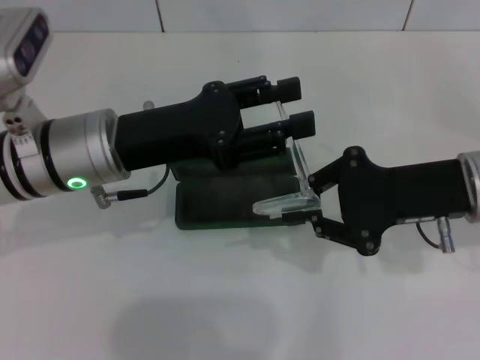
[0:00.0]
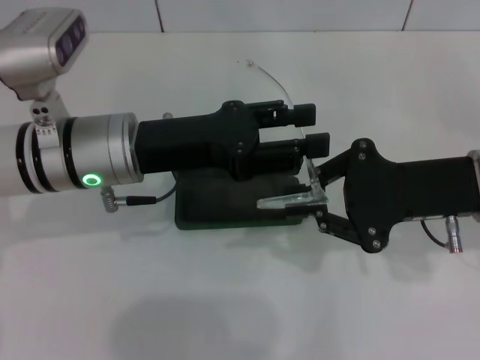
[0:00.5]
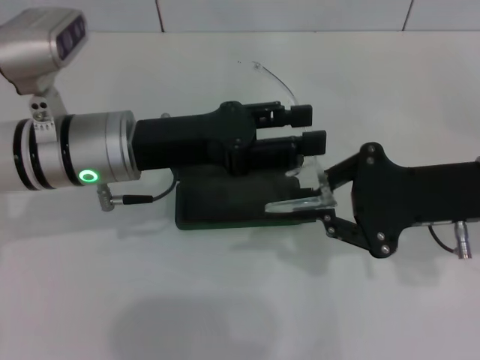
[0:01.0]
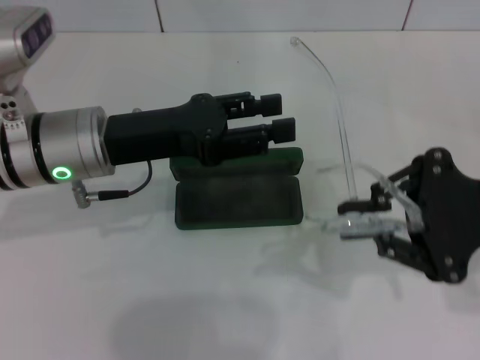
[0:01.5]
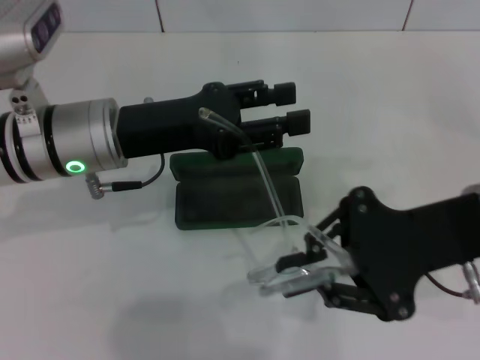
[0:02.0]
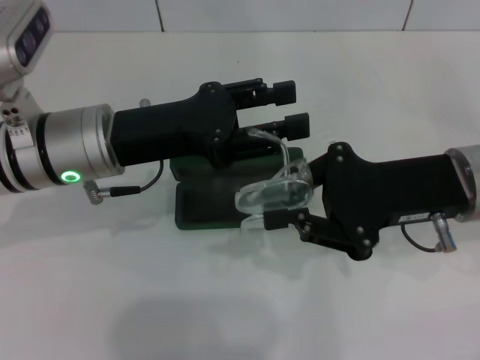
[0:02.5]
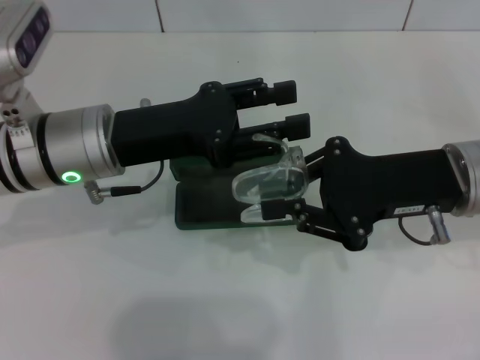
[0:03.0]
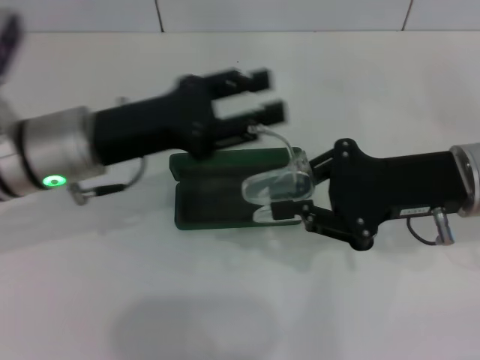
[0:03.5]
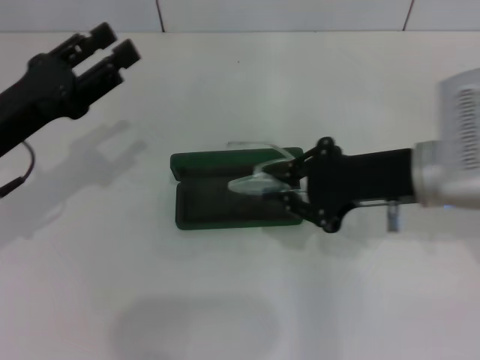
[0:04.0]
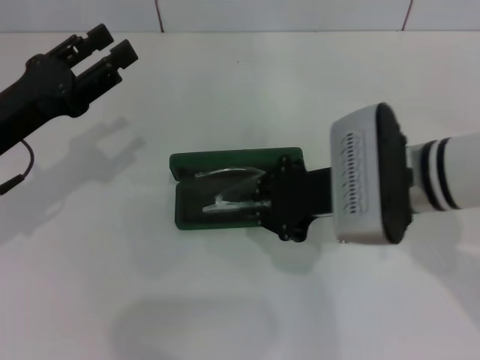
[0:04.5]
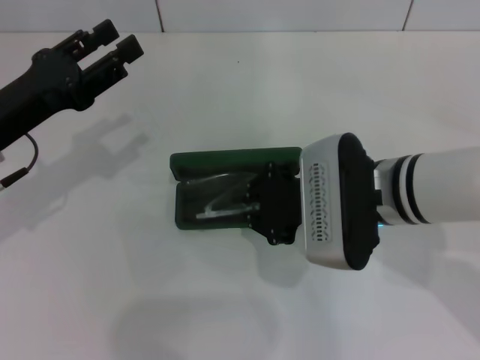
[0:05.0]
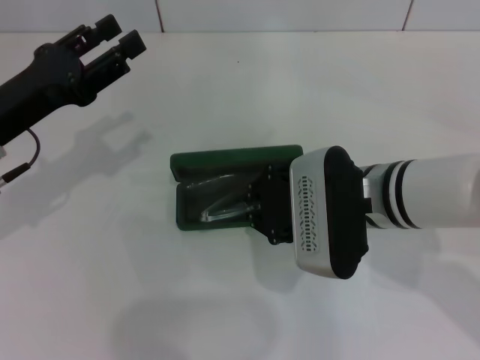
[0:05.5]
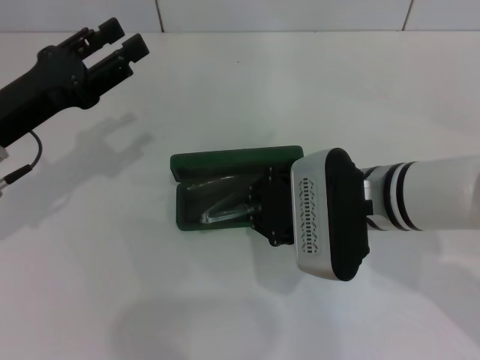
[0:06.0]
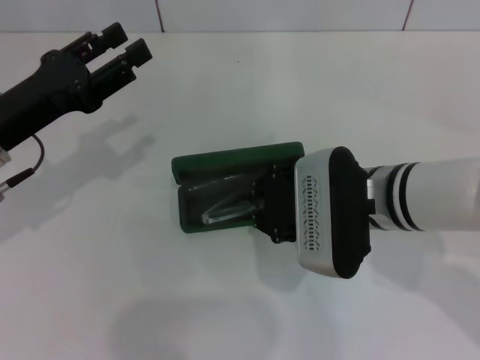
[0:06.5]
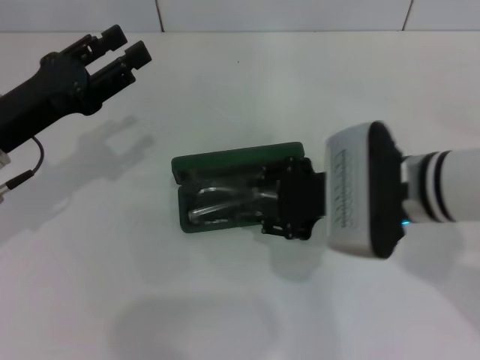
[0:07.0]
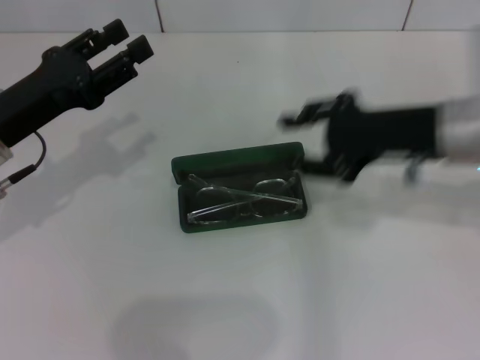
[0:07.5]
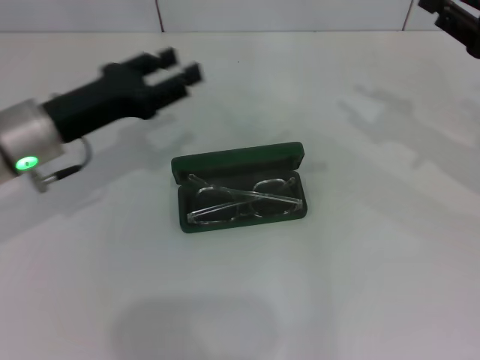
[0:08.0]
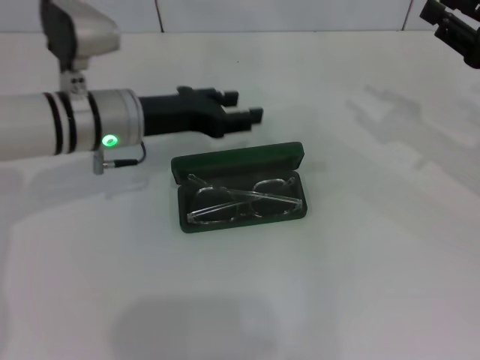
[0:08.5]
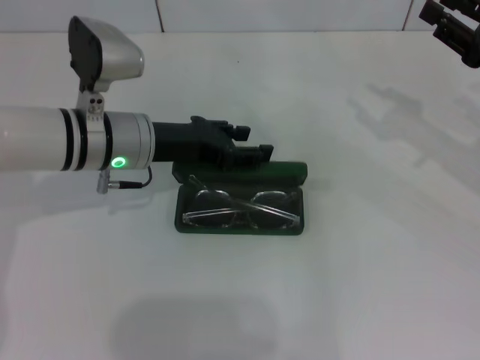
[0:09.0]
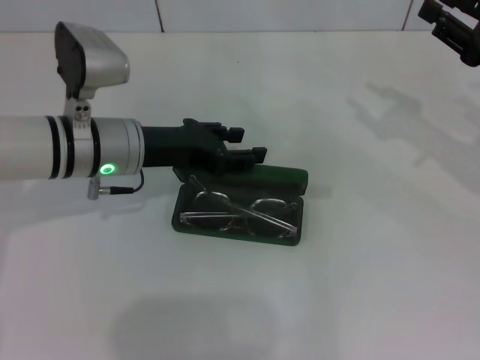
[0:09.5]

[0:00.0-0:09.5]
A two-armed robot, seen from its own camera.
Step, 0:00.0 to 0:03.0: Fold the frame with your left hand.
Step, 0:03.5 to 0:07.0: Put the glasses into the case with your right hand.
0:02.0 to 0:04.0: The left gripper shifts about 10 cm to the left.
0:04.0 to 0:05.5: The right gripper moves to the left, roughly 10 cm.
0:05.5 to 0:07.5: The right gripper heads to the right and upward, covering about 10 cm, and opens up.
0:07.5 to 0:09.5: Both grippers move to the right, about 10 cm.

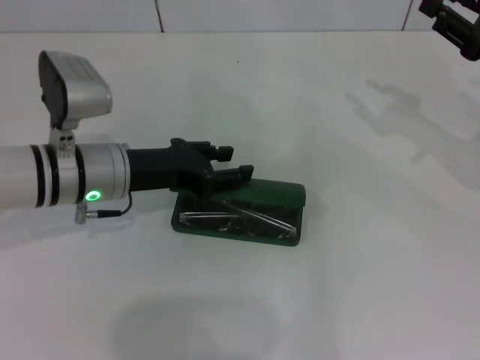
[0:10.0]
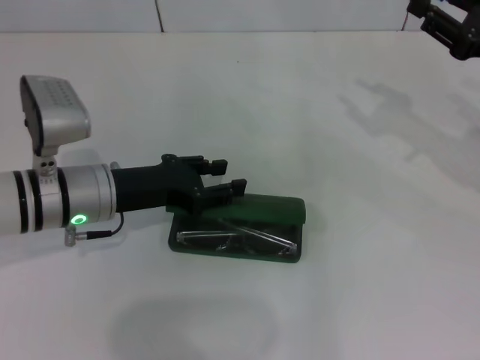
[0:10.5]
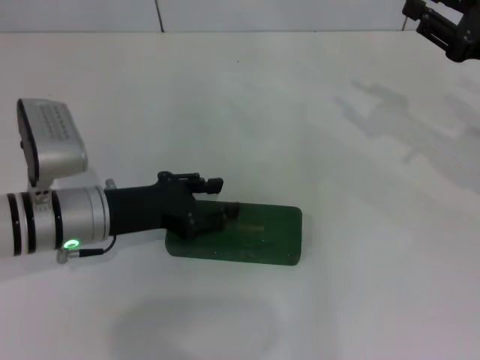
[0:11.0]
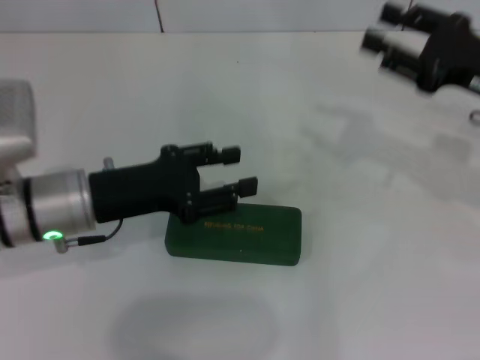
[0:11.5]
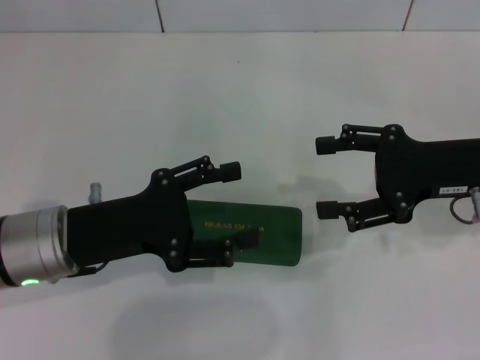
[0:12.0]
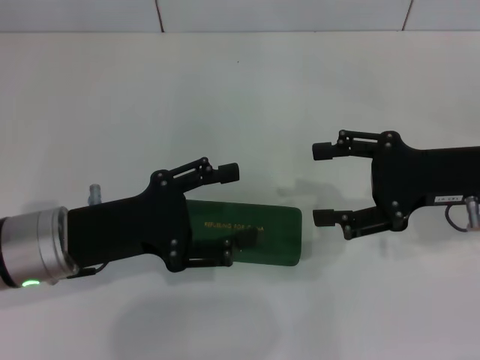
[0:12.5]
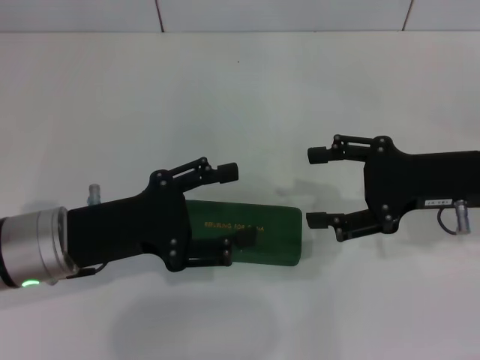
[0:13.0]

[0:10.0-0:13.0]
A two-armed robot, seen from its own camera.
0:10.0 to 0:11.5: The left gripper moves roughly 5 cm.
0:11.5 to 0:13.0: The left gripper opens its fingers; the right gripper ends up approximately 5 cm from where it was.
